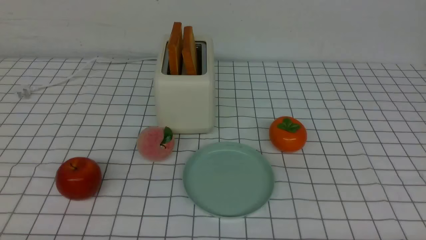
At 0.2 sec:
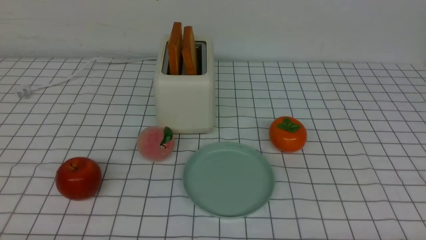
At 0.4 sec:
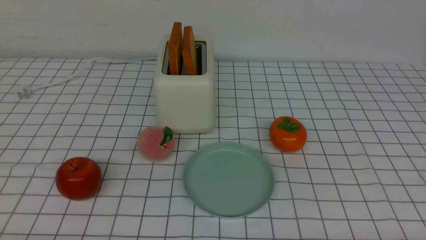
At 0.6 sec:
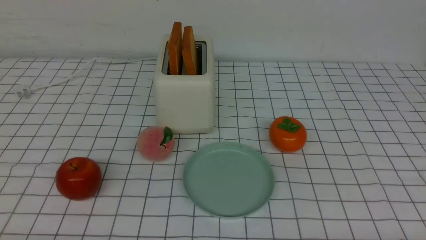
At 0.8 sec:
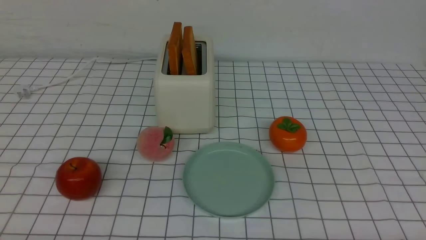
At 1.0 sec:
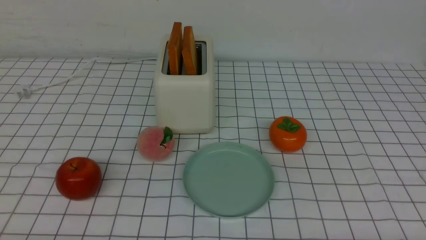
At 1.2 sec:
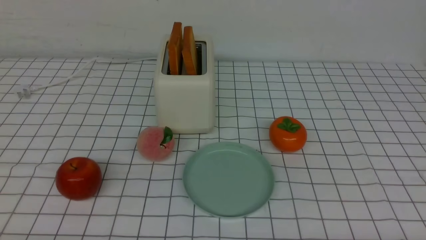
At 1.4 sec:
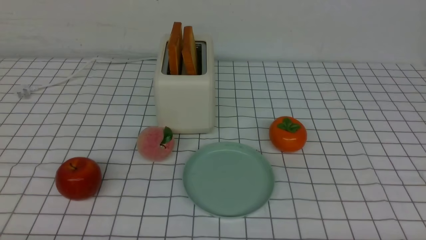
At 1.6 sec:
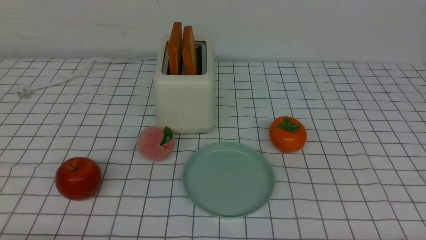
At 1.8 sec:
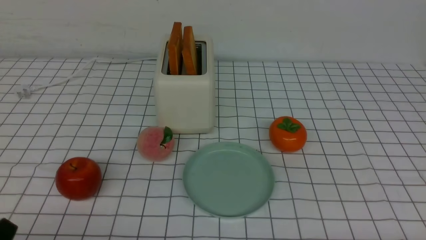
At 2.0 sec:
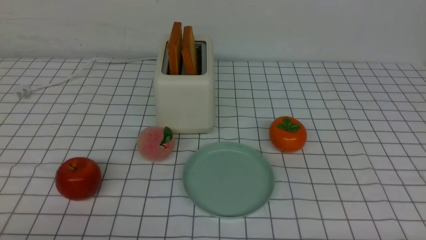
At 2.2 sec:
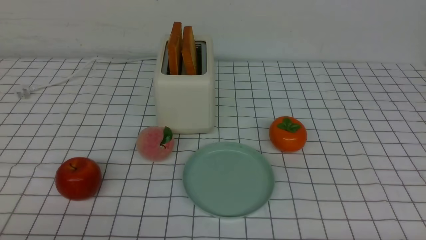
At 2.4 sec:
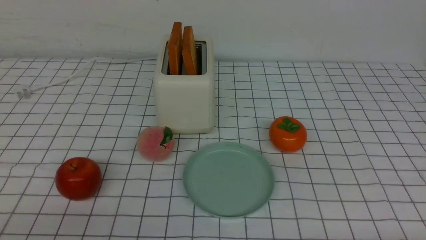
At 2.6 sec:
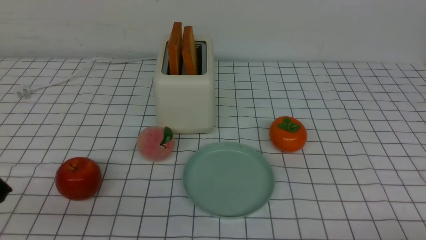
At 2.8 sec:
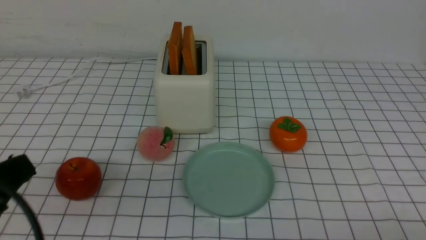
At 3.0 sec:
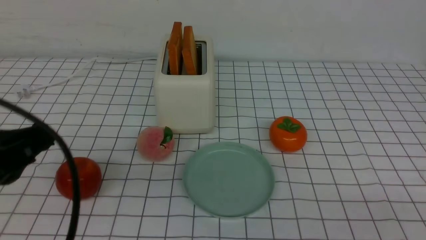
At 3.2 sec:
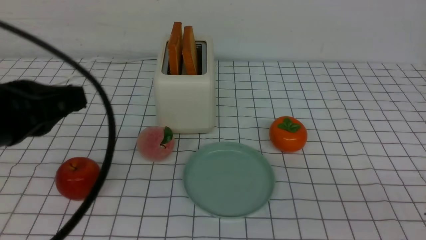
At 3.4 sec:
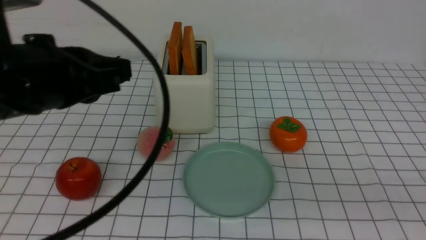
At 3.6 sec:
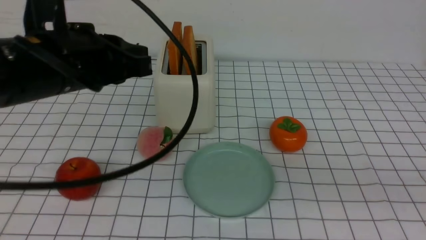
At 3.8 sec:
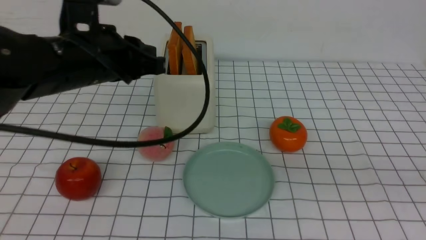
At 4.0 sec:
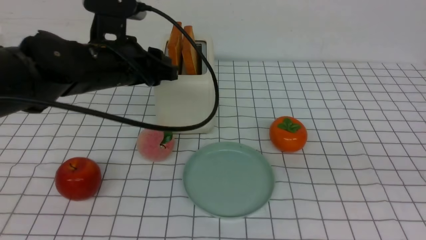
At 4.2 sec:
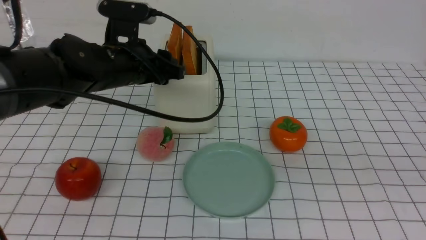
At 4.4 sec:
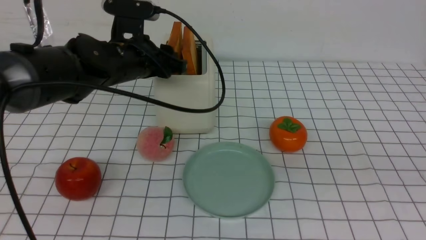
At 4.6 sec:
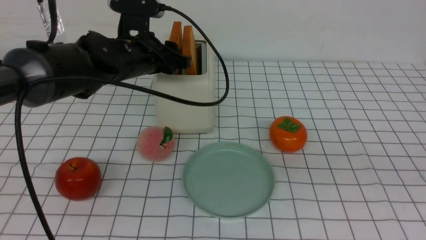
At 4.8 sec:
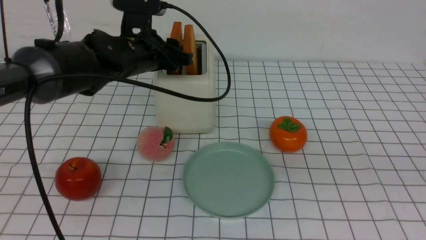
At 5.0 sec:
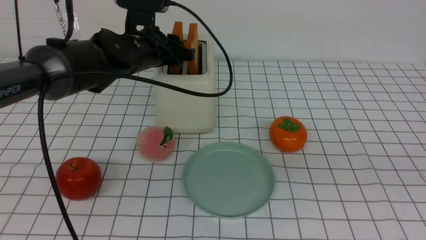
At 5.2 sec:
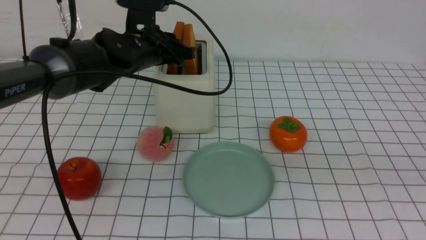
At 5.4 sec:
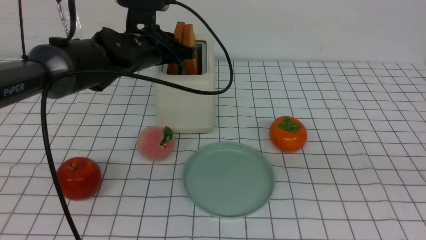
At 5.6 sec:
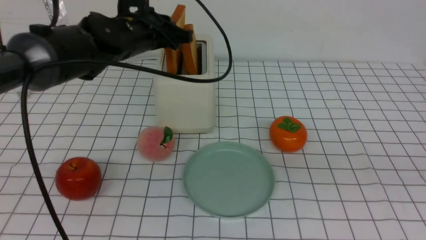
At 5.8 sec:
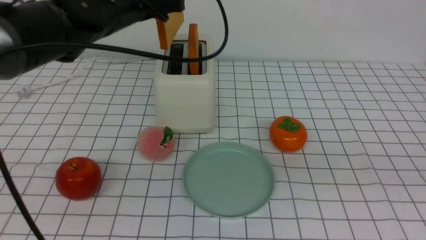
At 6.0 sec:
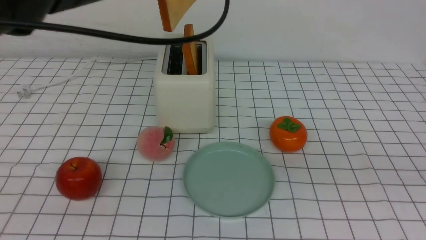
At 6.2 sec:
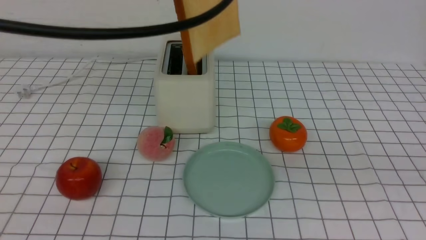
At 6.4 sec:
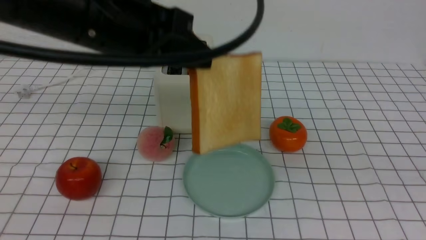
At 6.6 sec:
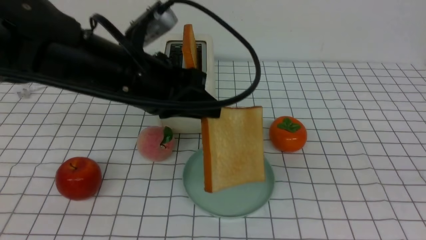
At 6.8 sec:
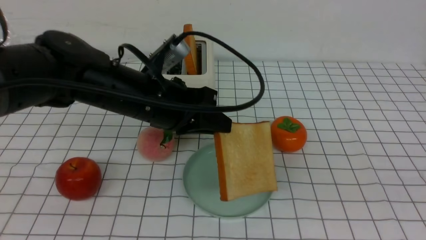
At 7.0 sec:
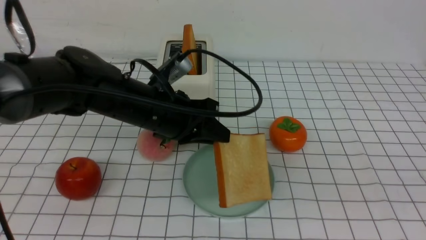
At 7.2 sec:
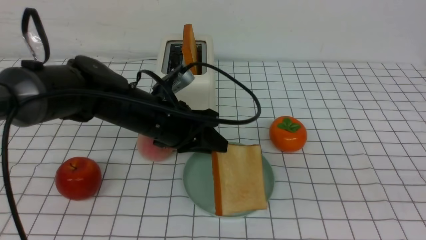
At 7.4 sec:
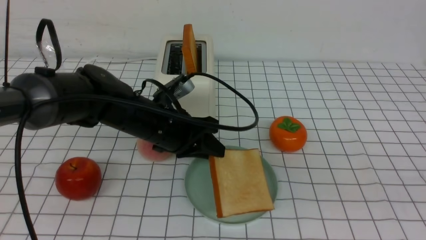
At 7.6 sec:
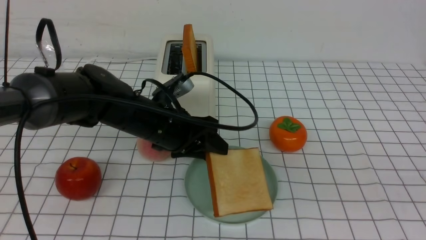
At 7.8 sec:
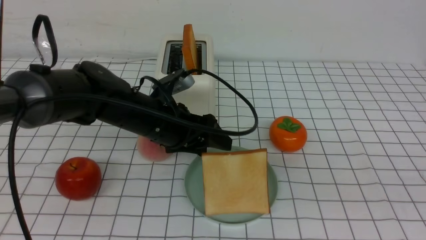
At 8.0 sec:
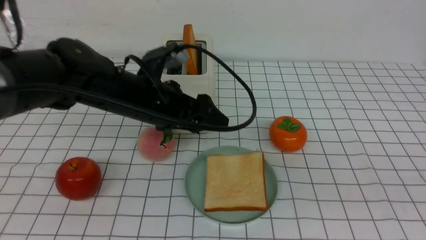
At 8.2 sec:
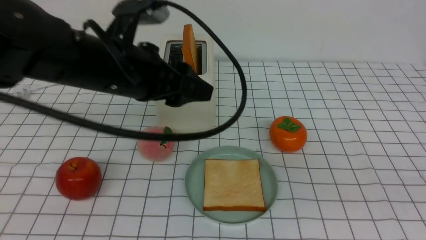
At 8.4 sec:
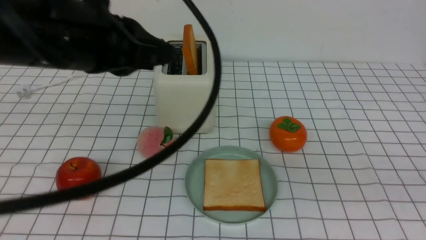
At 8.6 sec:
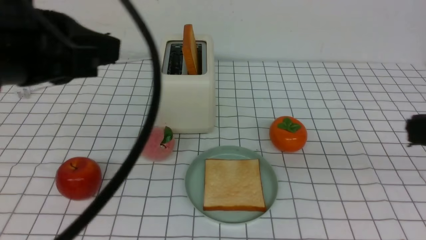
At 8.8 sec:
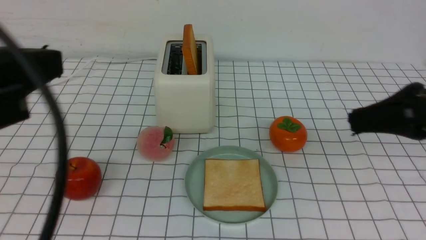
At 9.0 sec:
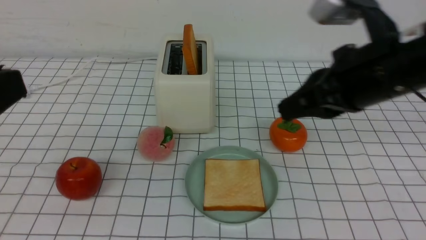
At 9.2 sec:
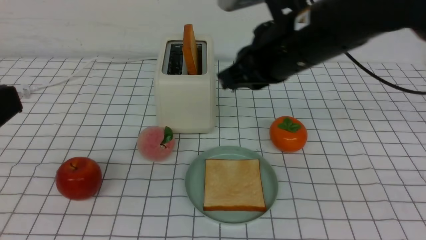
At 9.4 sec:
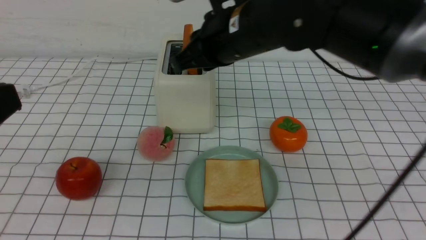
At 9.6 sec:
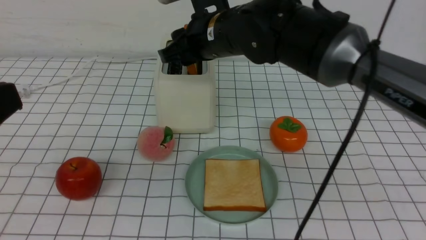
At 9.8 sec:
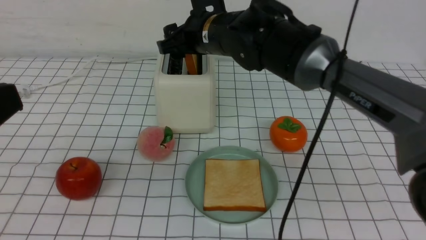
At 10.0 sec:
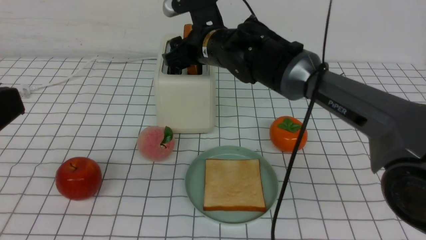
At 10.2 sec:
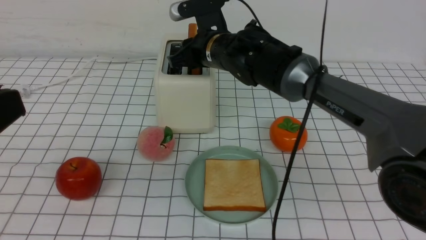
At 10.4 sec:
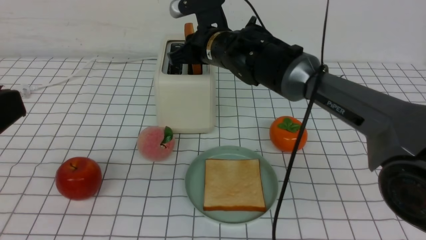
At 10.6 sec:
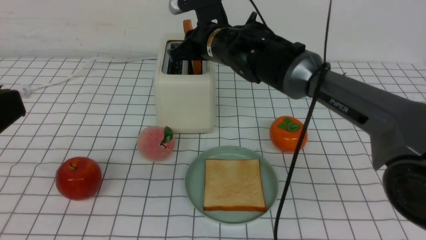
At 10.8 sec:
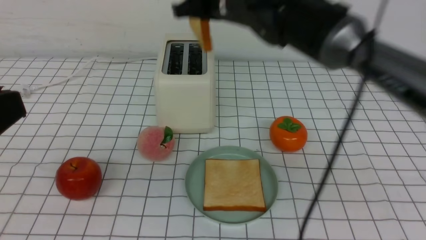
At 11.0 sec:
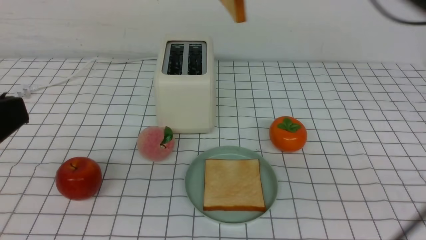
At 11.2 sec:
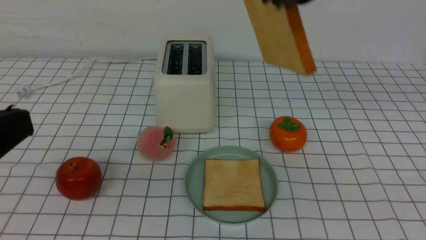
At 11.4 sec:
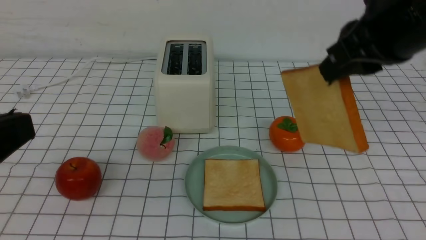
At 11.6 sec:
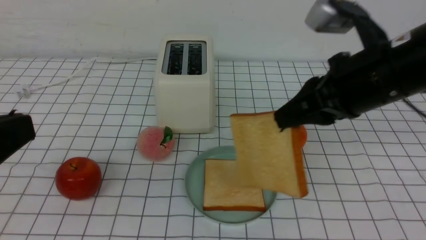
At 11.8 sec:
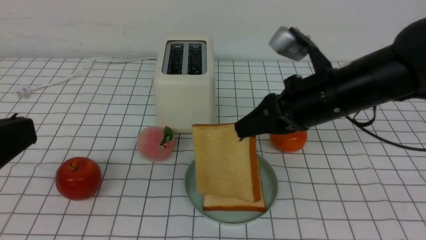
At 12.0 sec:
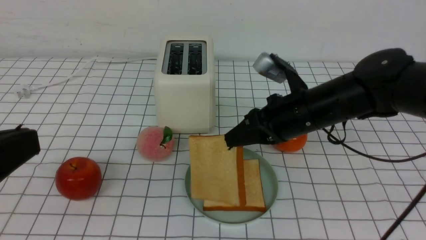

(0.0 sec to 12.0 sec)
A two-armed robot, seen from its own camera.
Task of the whole recording: take toasted bread from bread machine on white checkered table place on plate.
Step, 0.0 sec - 5.6 sec: use the left arm to take out a slice of bread.
Step, 5.8 sec - 8.0 sec: use the left arm to put a slice of bread into the empty plate.
Step, 8.2 sec - 10.6 sec: use the right arm to take out a slice of bread.
1.6 sec - 3.0 sec: The left gripper moves upward and forward, about 15 cm, and closes up.
3.0 sec - 4.4 sec: The left gripper moves forward, some 25 cm, and opens, while the right gripper travels upward and forward by about 15 cm.
4.4 sec - 6.0 sec: The left gripper is displaced upward and backward by roughly 15 cm, and closes up.
6.0 sec - 7.6 sec: The left gripper travels downward by some 20 cm, and opens, while the right gripper moves backward, roughly 5 cm.
7.6 sec - 9.0 sec: The right gripper is displaced forward and to the left by some 25 cm. Meanwhile the left gripper is displaced backward, upward and to the left by about 35 cm, and closes its fingers.
9.0 sec - 10.4 sec: The right gripper heads forward, to the left and downward, covering some 25 cm, and opens up.
10.4 sec - 12.0 sec: The right gripper travels to the right and backward by roughly 15 cm, and reaches some 15 cm upward, then returns.

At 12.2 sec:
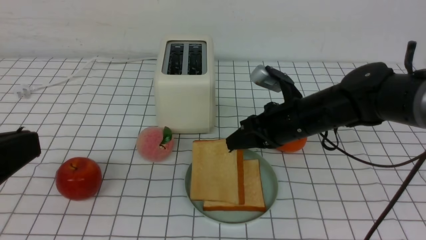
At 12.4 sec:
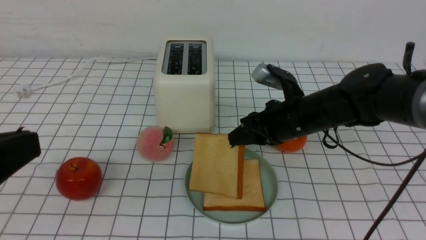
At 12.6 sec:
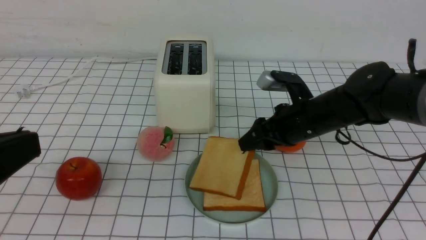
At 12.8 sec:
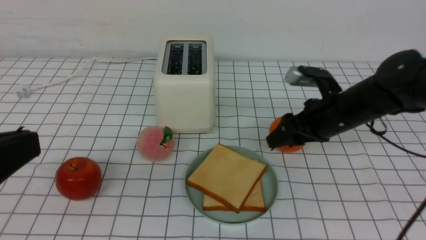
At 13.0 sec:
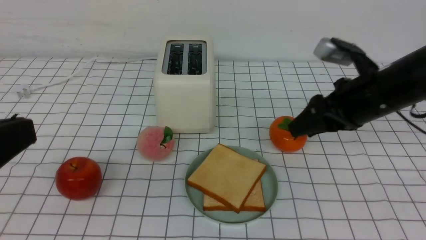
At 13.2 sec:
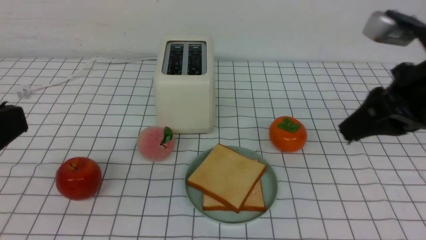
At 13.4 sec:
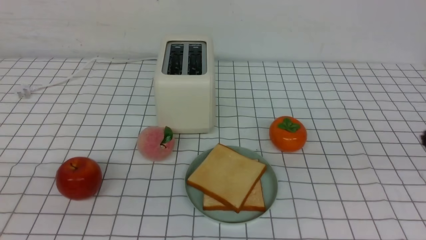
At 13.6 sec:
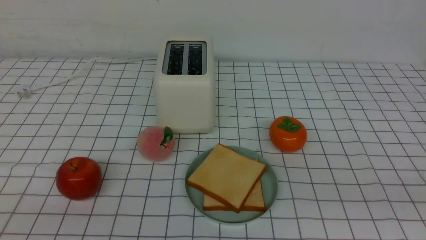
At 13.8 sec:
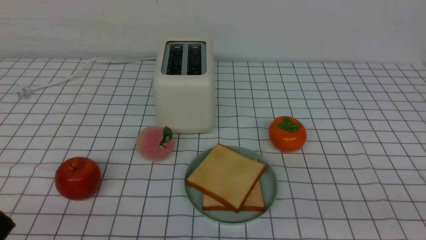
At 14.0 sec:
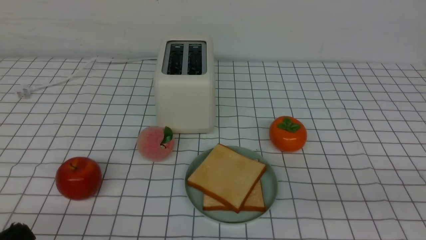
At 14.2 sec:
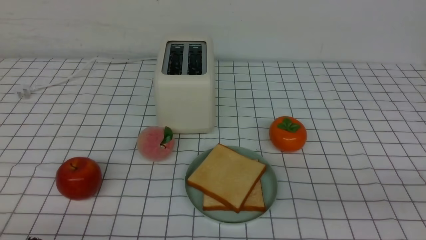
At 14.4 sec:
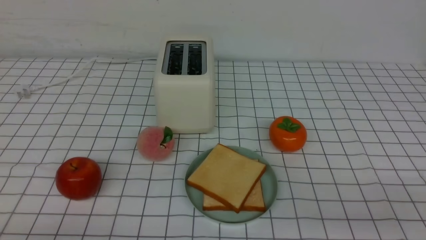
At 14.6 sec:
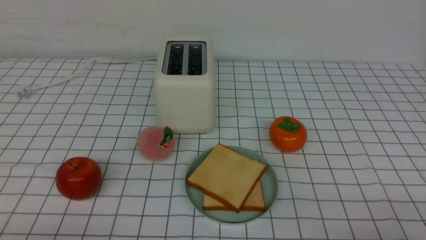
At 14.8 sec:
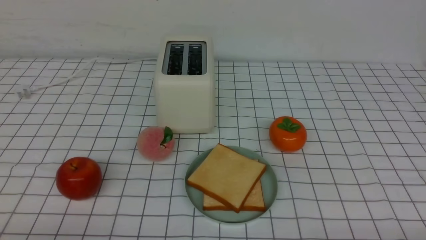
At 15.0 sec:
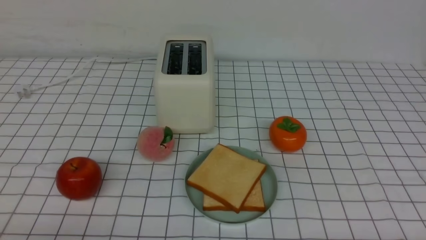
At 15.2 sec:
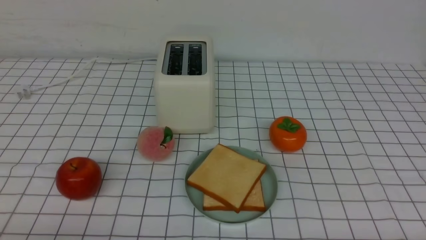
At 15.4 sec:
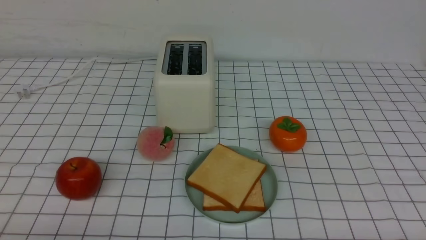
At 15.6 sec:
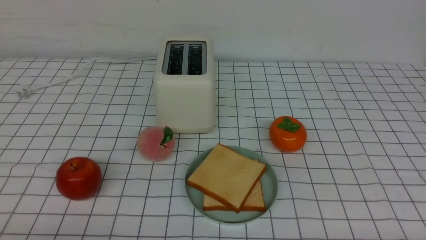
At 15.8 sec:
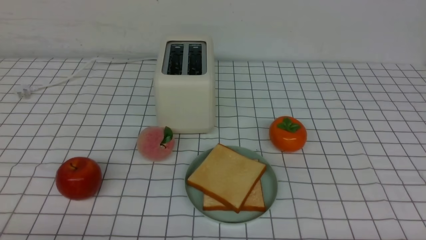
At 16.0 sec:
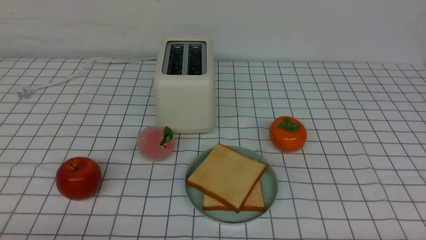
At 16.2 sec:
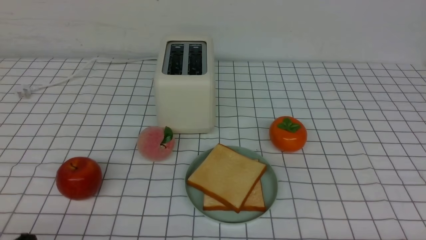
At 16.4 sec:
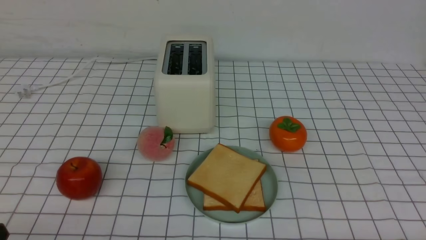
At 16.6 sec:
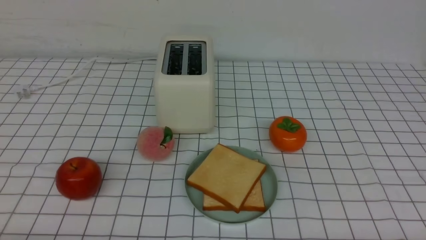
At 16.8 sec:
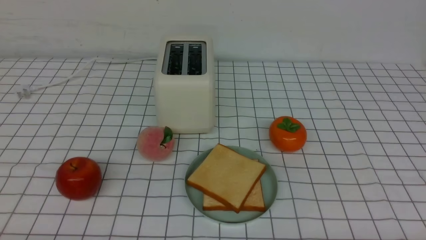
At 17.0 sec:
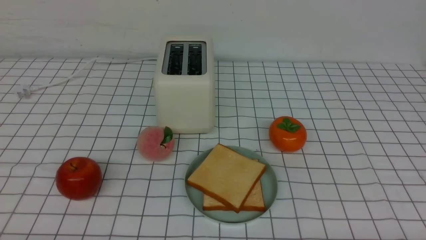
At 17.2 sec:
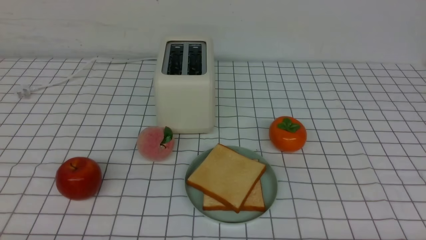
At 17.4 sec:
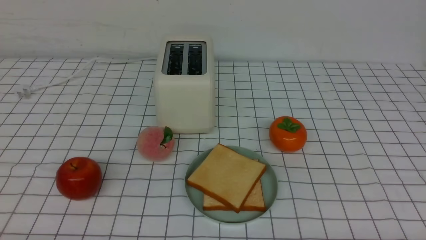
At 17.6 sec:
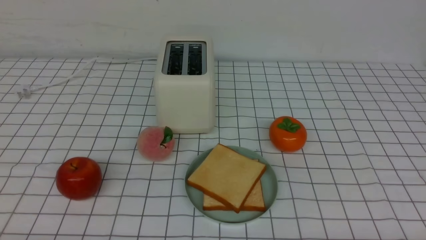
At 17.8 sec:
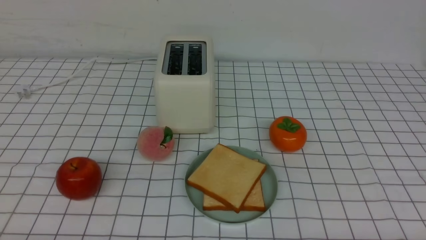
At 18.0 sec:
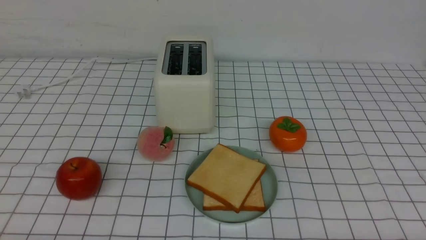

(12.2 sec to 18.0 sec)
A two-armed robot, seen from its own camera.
Task of the whole recording: take toasted bread from bread machine on white checkered table place on plate.
12.2 sec - 13.6 sec: The left gripper shifts about 10 cm downward and backward. Meanwhile the right gripper moves backward, to the right and upward, approximately 35 cm, and opens and closes again.
